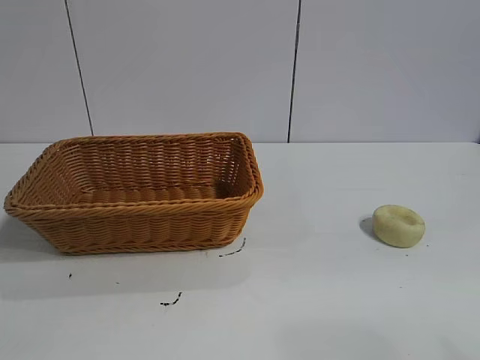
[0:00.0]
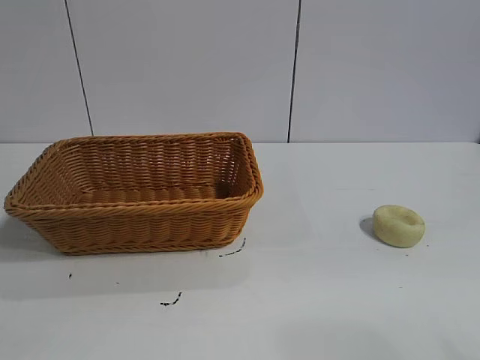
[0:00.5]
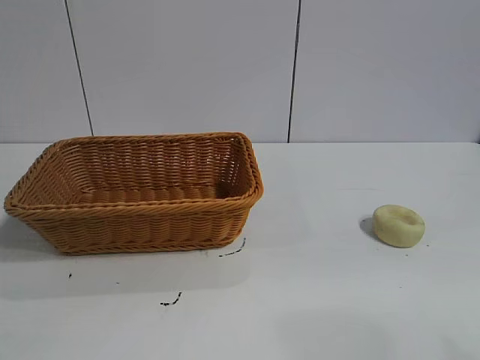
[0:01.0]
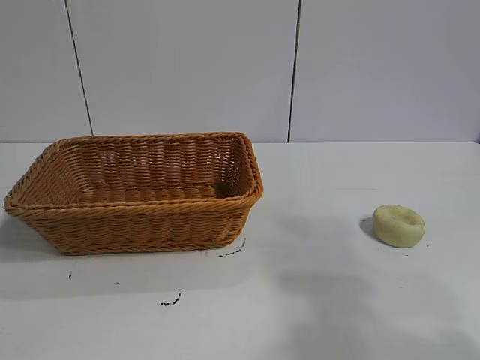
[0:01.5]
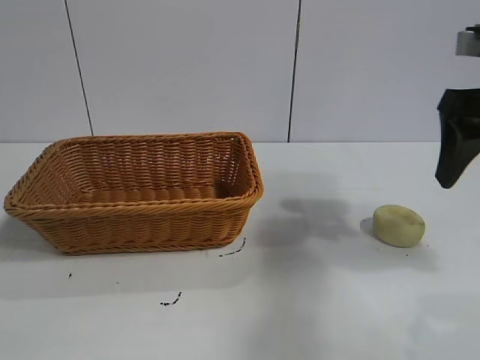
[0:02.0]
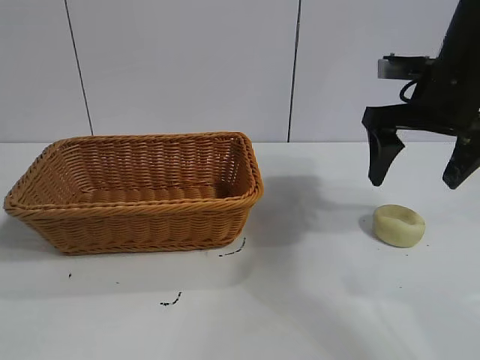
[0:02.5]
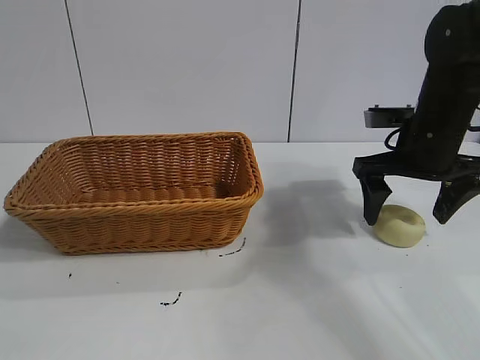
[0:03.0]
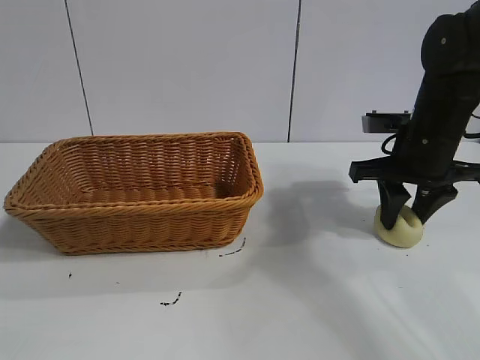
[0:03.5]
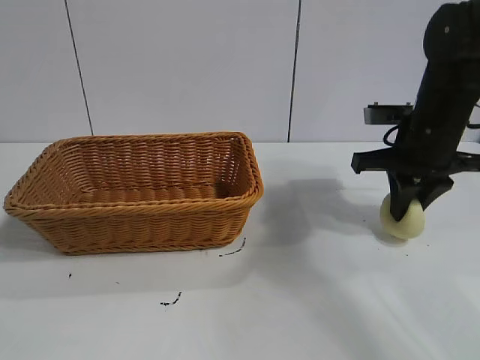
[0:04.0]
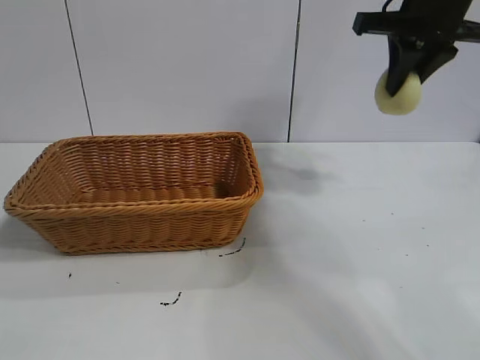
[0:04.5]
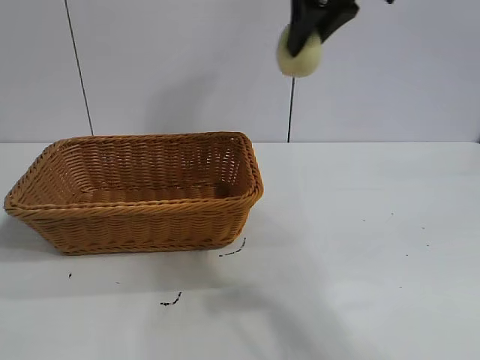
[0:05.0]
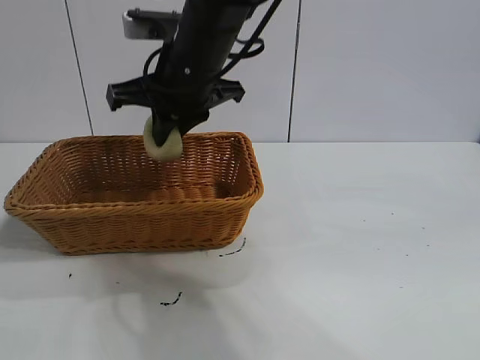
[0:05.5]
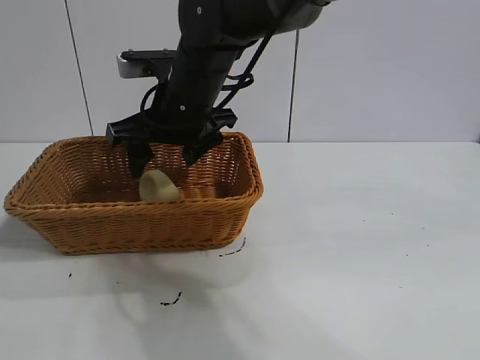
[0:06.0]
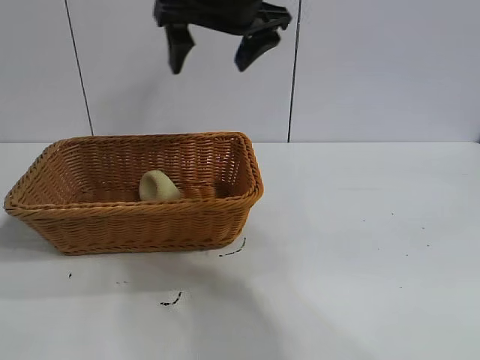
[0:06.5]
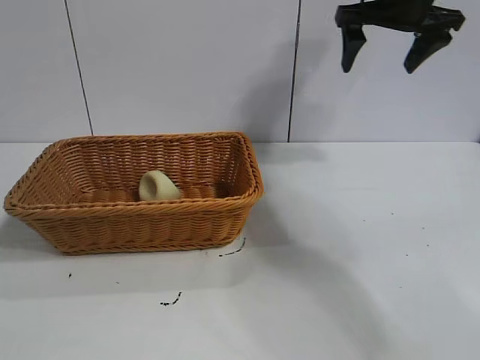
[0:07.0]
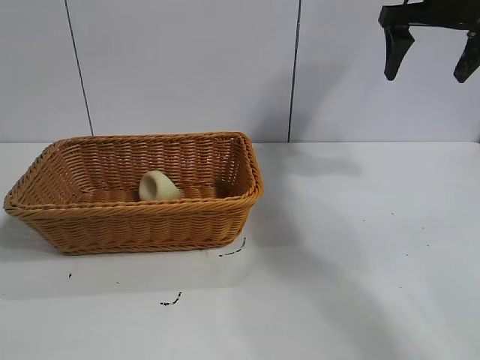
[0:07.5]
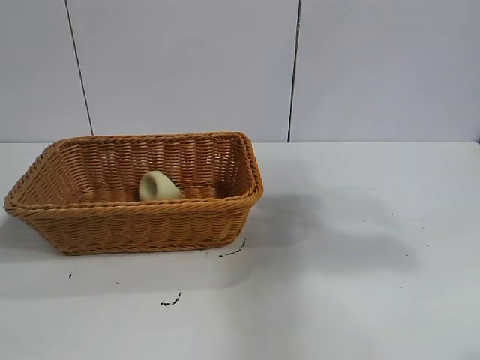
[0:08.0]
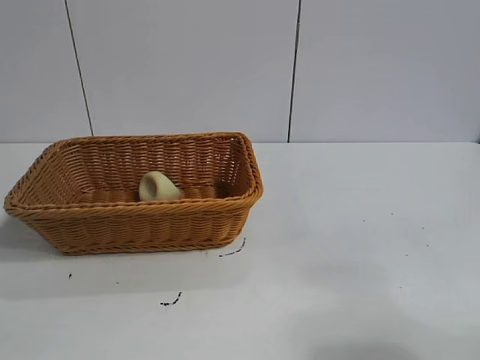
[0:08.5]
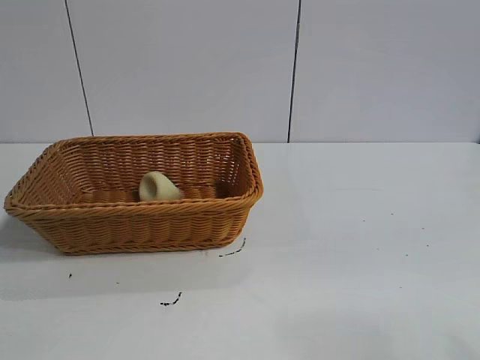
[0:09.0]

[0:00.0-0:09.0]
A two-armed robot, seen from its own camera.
Task of the whole recording: pick up the egg yolk pastry and put it into the basket.
Step, 0:01.0 to 0:03.5: Grasp egg yolk pastry with right gripper.
Step, 0:04.0 to 0:06.0: Place the egg yolk pastry in the basket with right gripper.
